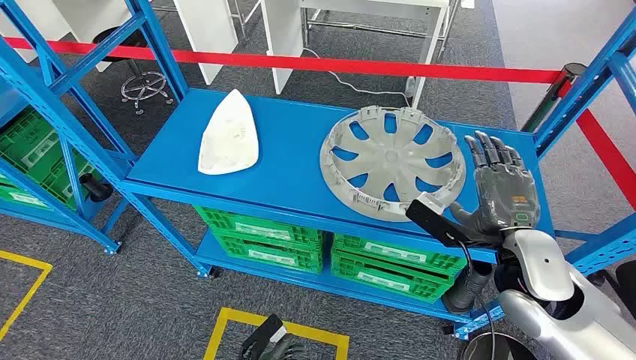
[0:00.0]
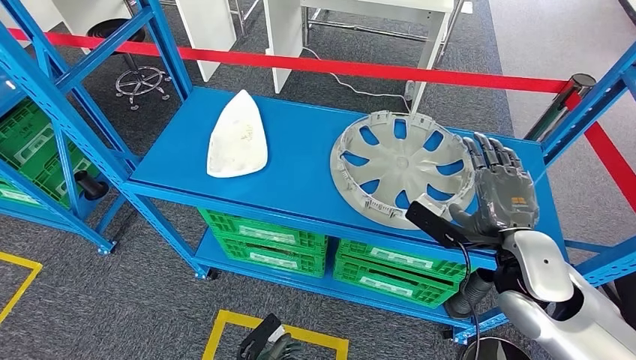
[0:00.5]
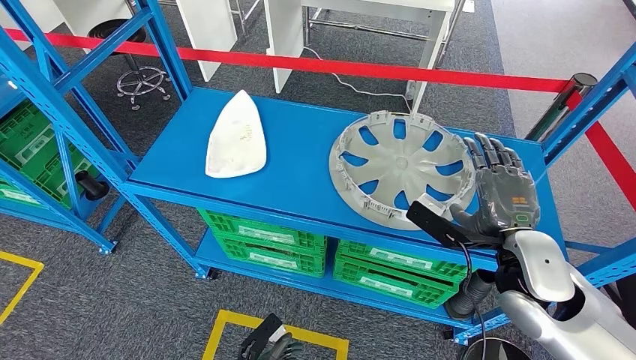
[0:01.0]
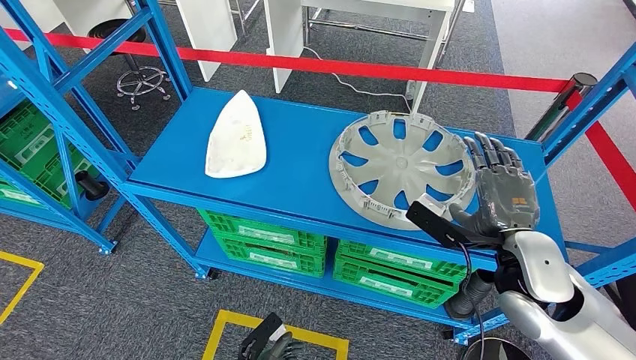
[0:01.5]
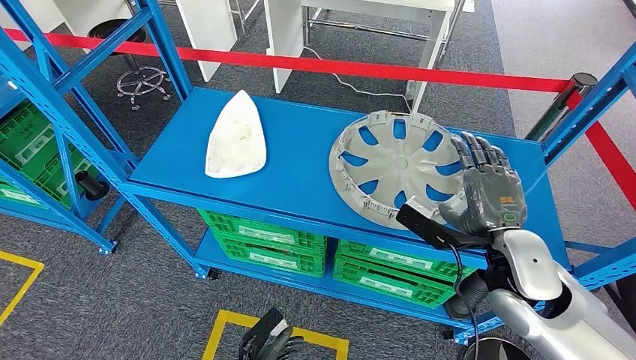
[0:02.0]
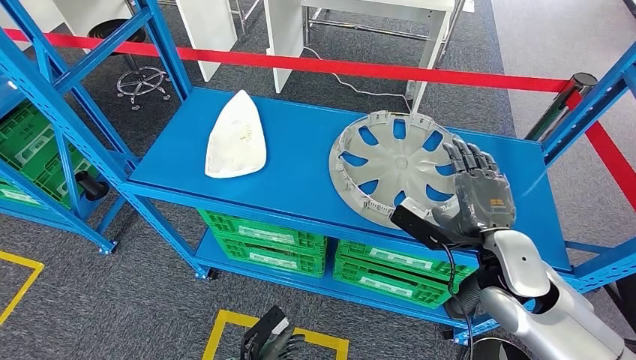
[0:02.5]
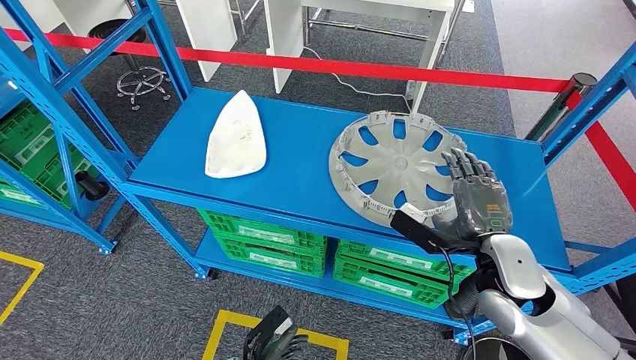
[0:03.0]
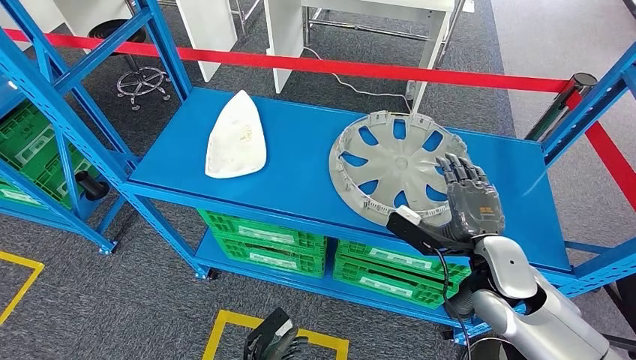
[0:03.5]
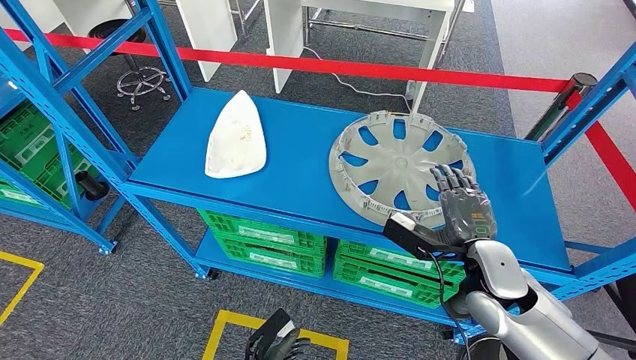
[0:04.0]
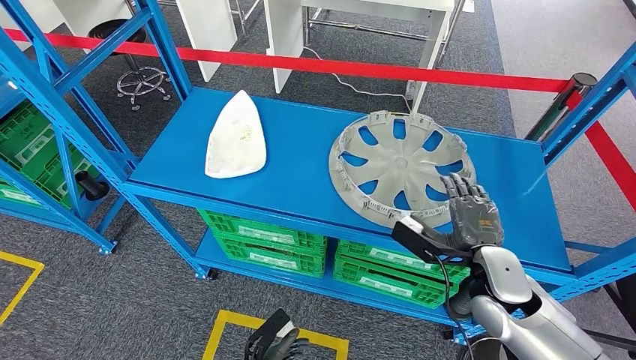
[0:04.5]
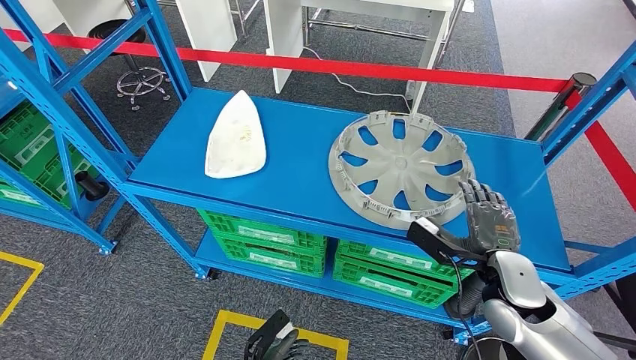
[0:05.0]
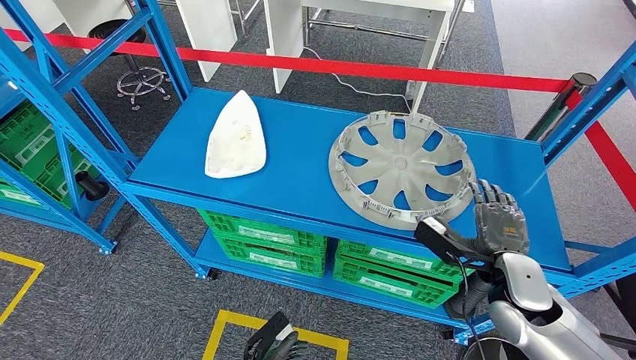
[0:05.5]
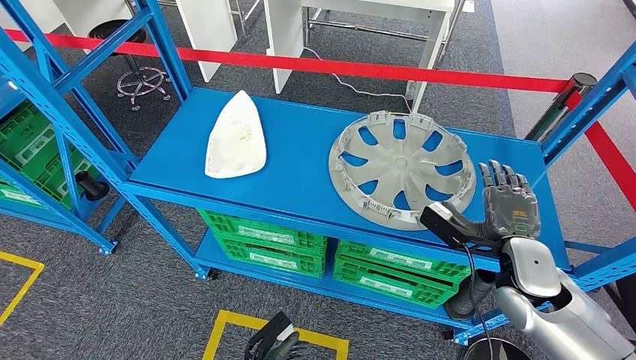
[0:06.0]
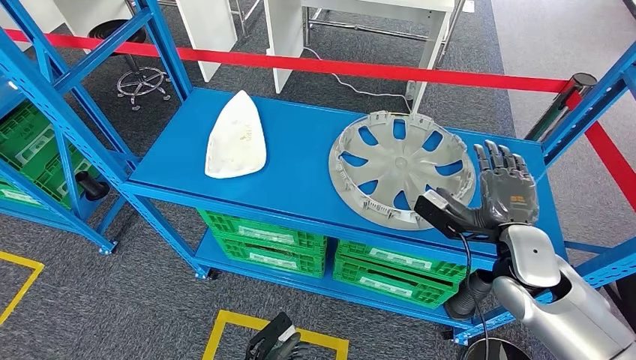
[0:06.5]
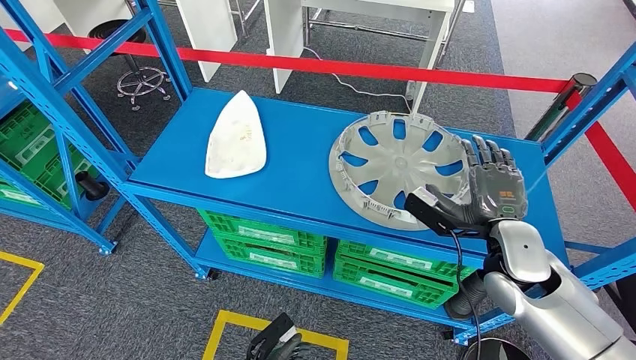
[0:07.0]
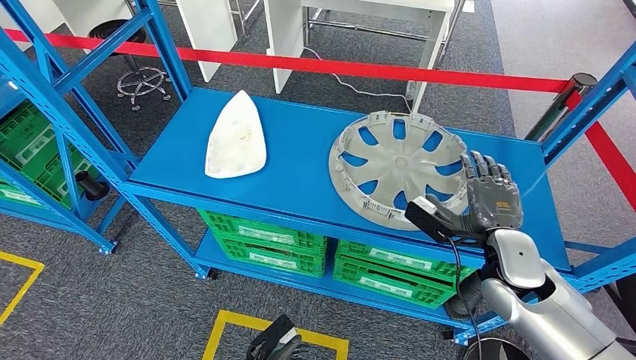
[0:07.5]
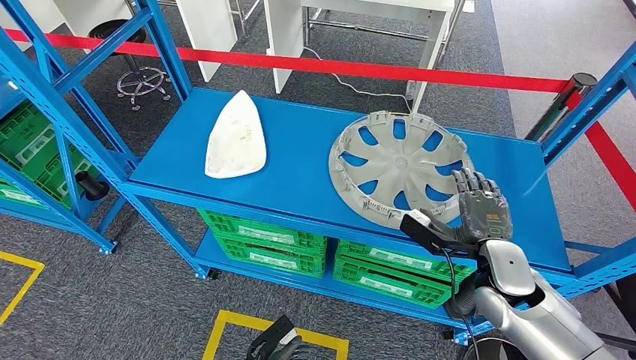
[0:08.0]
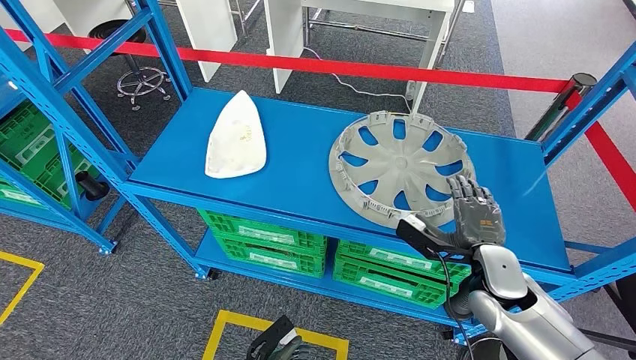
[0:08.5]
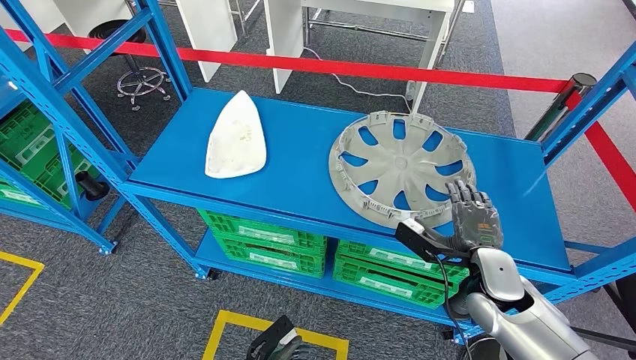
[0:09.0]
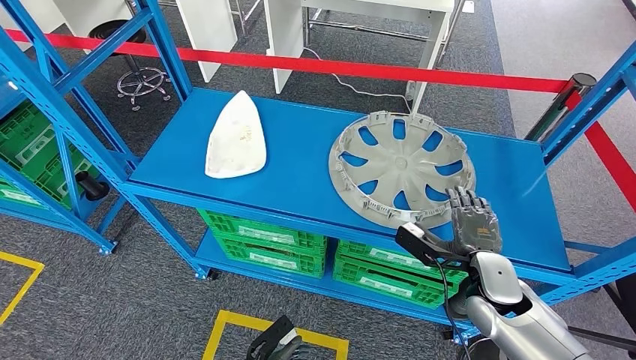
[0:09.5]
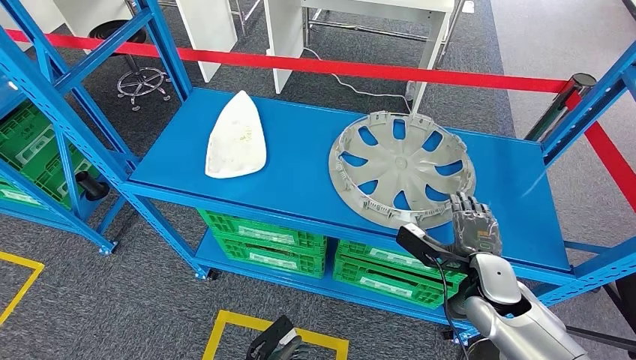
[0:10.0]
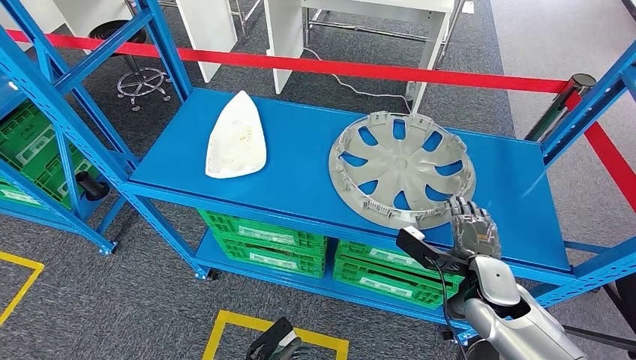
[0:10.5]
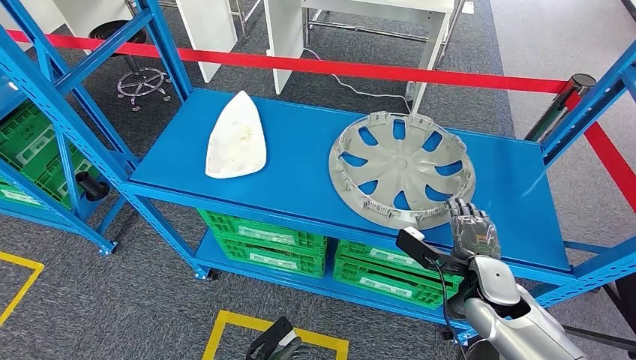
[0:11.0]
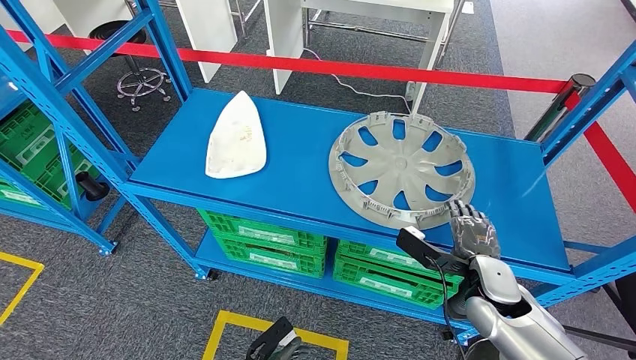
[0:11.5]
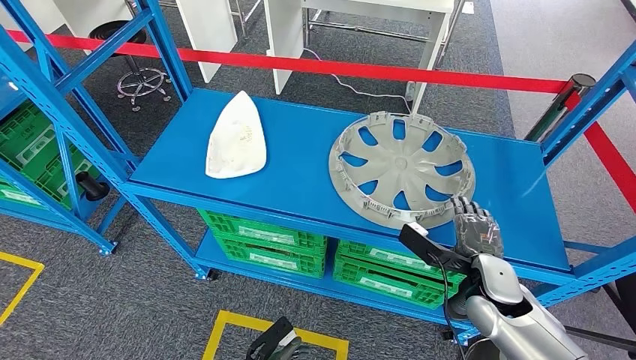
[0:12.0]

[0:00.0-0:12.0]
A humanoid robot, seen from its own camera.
0:02.0 to 0:04.0: The right hand travels downward by some 5 cm.
0:04.0 to 0:06.0: The right hand moves to the right, approximately 5 cm.
0:06.0 to 0:08.0: The hands stay close to where they were, moving slightly.
0:08.0 to 0:12.0: The hands move only a little.

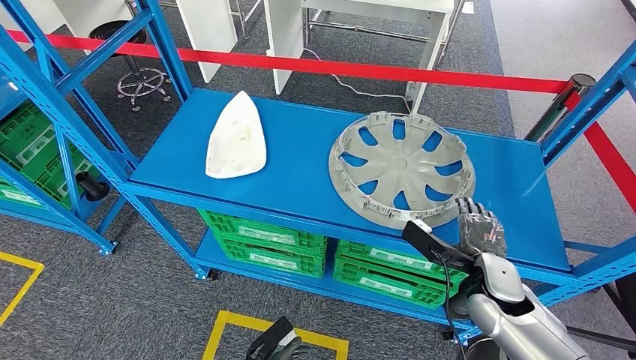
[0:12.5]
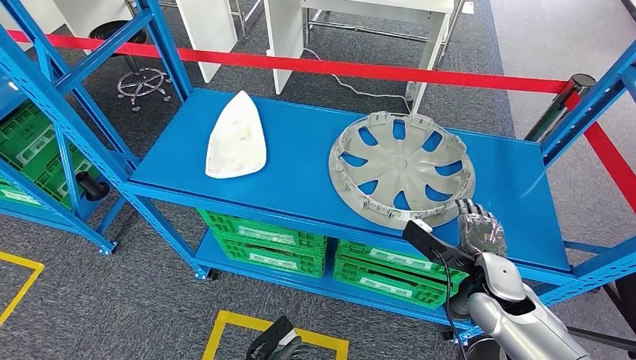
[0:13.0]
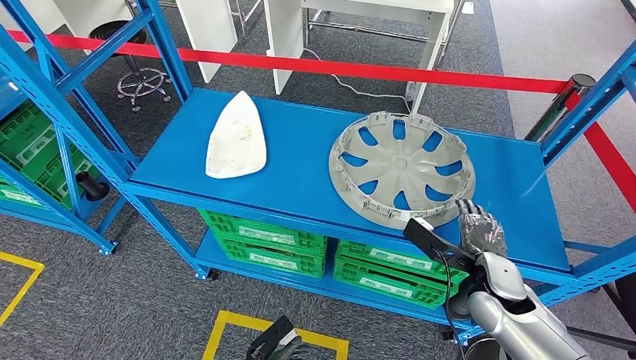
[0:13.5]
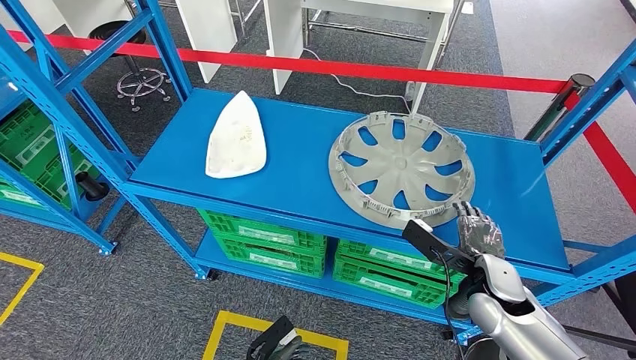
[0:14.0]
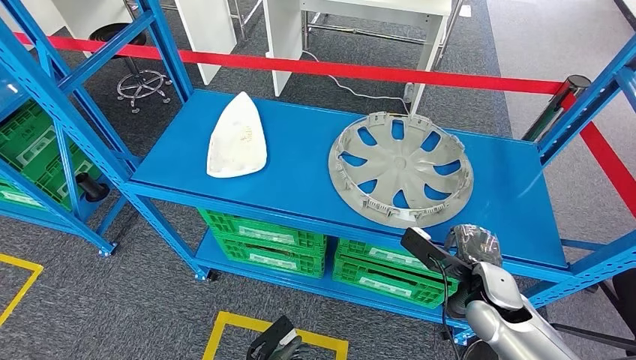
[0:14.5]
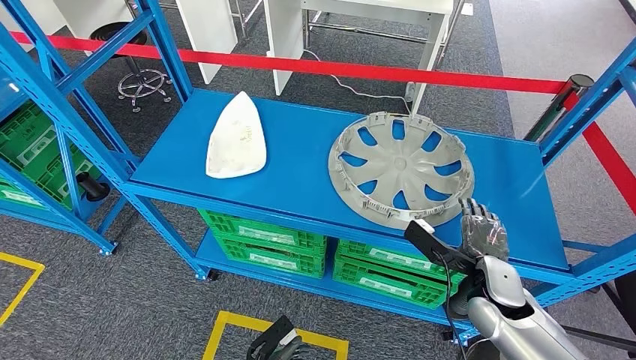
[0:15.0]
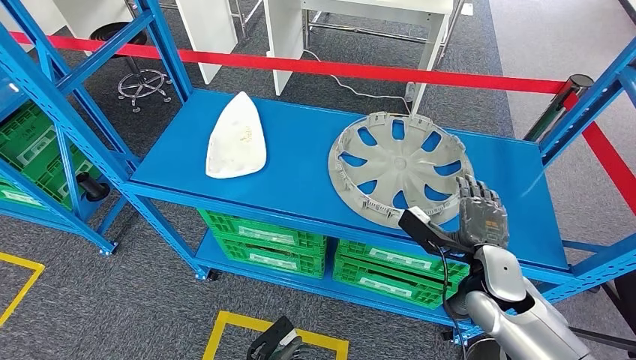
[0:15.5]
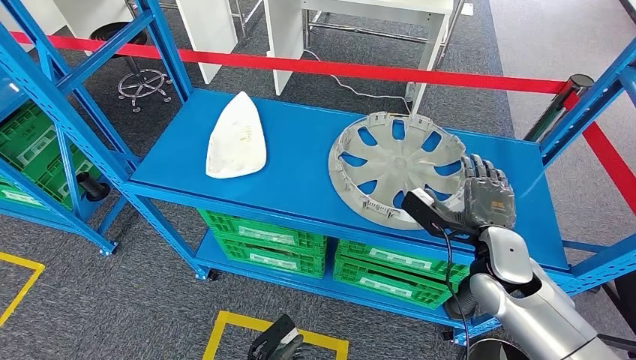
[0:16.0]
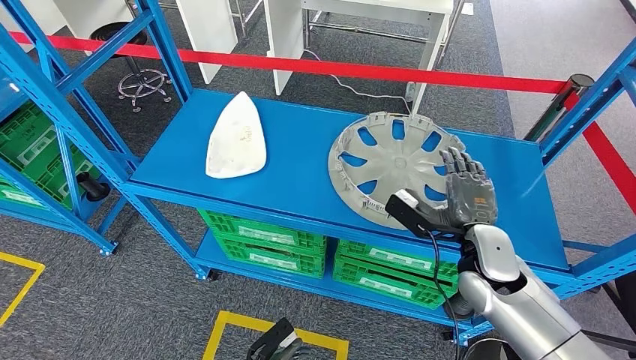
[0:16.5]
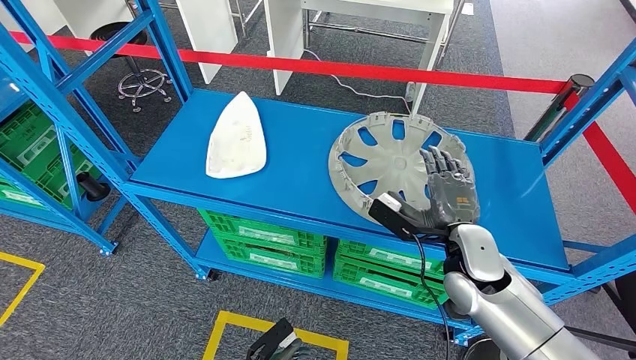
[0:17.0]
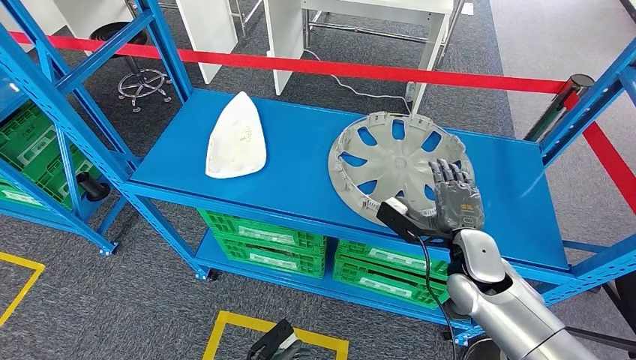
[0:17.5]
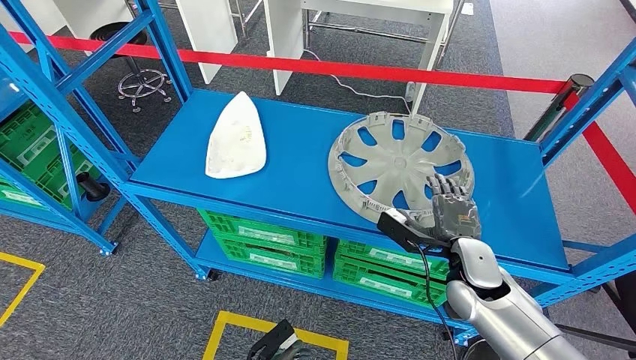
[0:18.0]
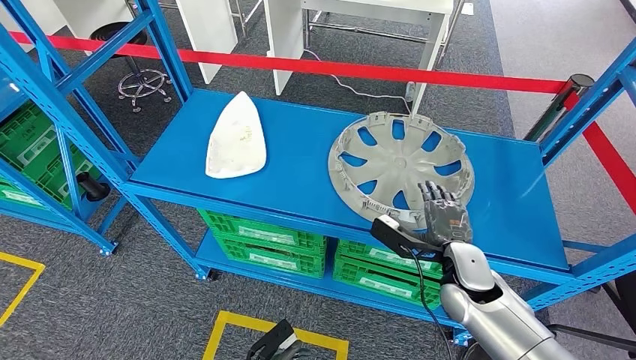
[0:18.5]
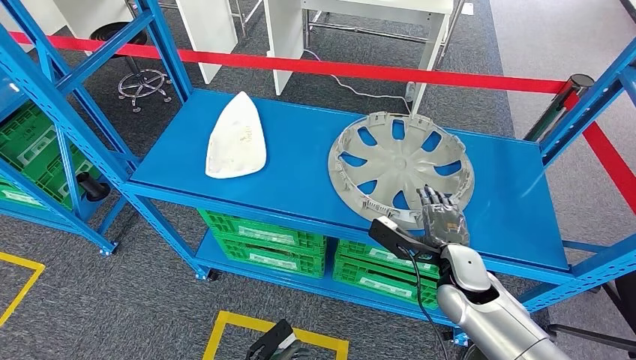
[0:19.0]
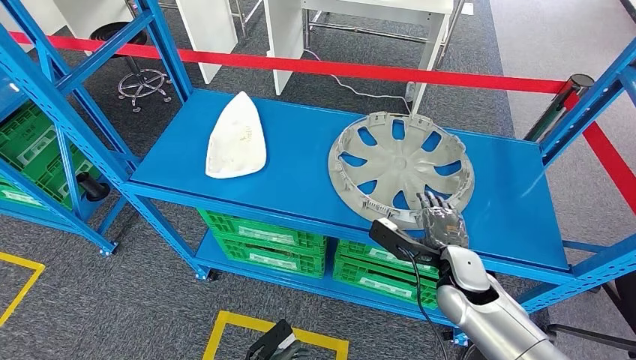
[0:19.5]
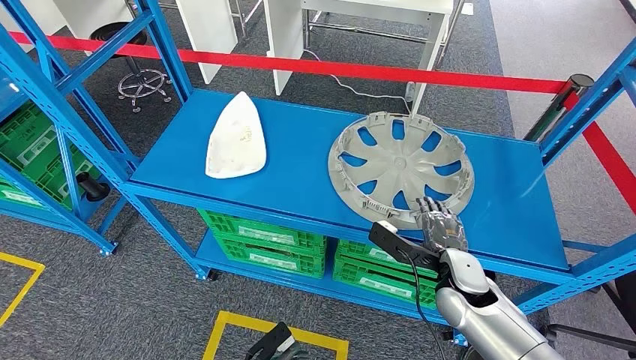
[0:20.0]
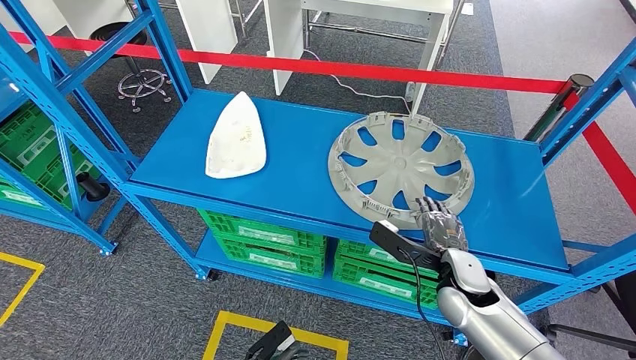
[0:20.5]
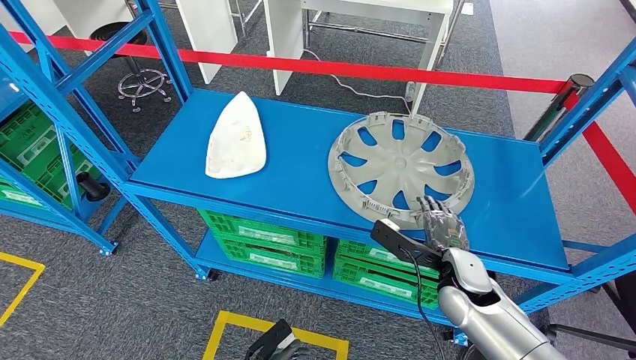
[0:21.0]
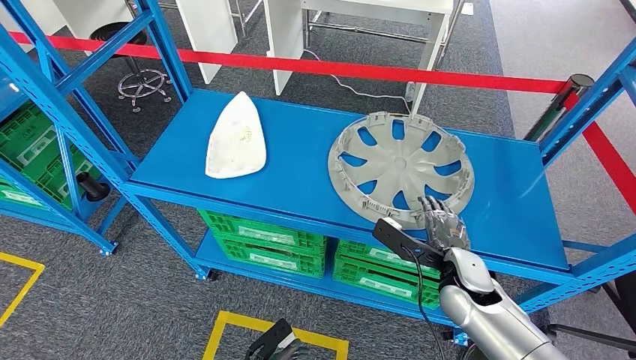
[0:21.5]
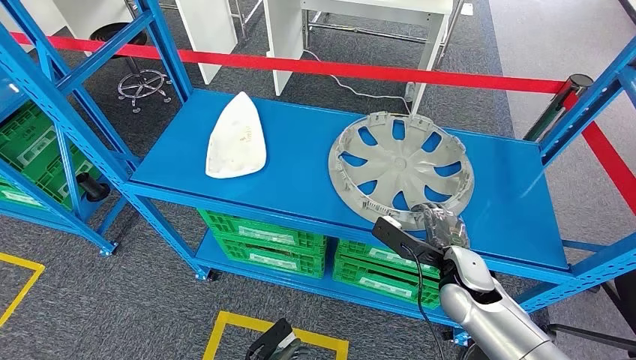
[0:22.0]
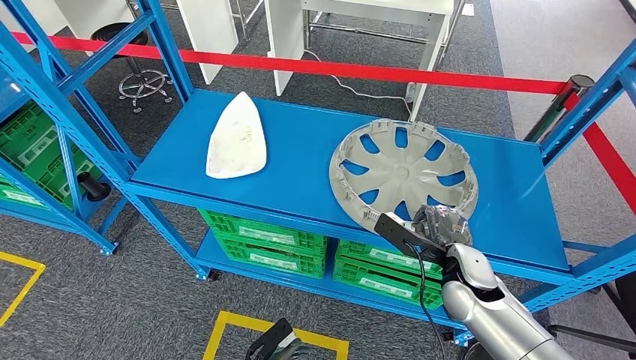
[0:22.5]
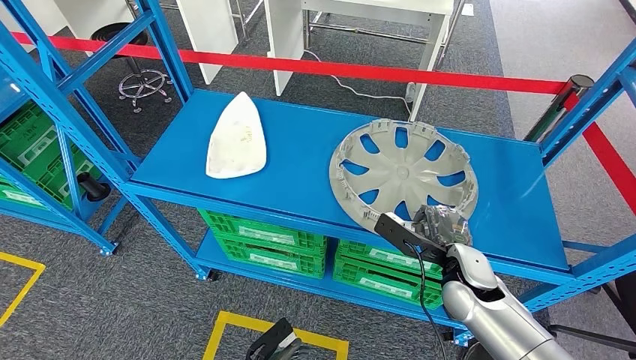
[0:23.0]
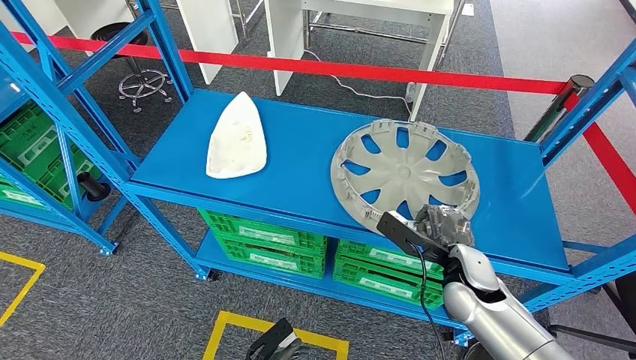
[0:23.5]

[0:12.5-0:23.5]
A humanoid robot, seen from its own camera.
0:12.5 to 0:14.5: The hands make only small movements.
0:14.5 to 0:16.0: The right hand is displaced upward by about 5 cm.
0:16.0 to 0:18.0: The right hand shifts by about 5 cm.
0:18.0 to 0:20.0: The hands move only a little.
0:20.0 to 0:21.5: Both hands stay put.
0:21.5 to 0:23.5: The two hands keep their place.
